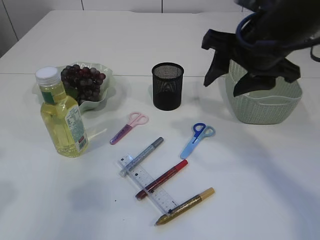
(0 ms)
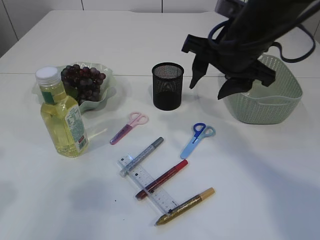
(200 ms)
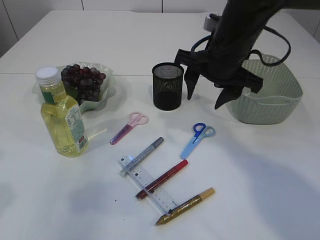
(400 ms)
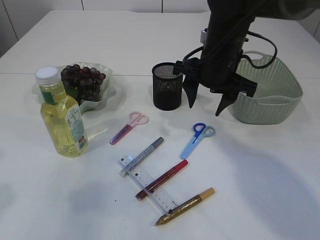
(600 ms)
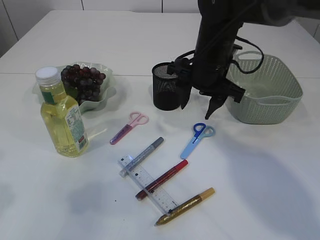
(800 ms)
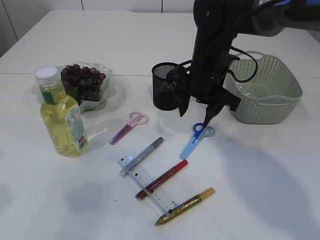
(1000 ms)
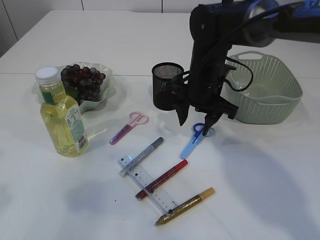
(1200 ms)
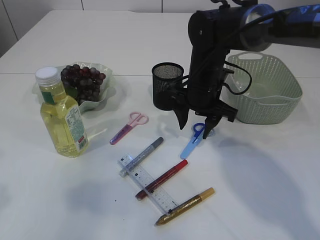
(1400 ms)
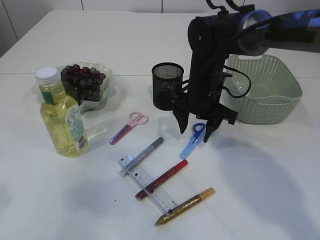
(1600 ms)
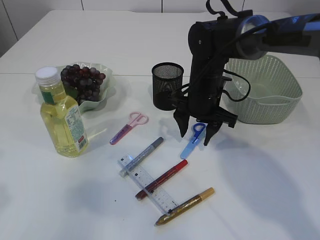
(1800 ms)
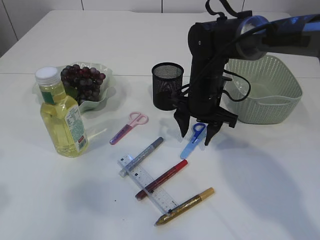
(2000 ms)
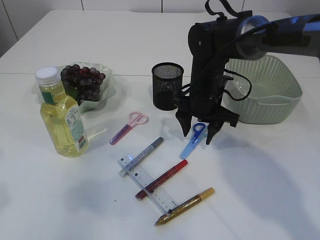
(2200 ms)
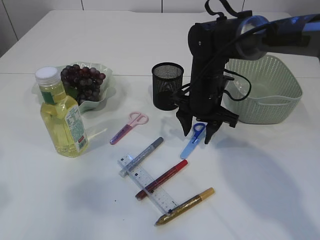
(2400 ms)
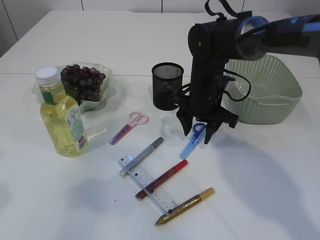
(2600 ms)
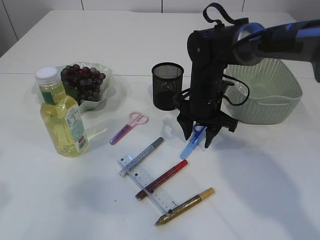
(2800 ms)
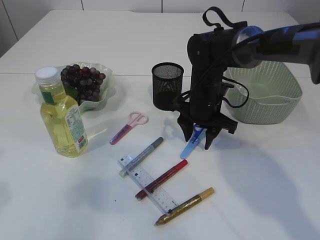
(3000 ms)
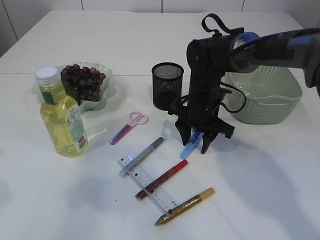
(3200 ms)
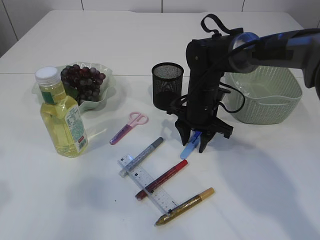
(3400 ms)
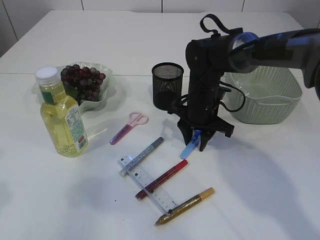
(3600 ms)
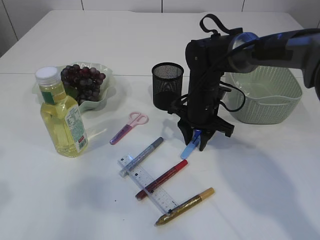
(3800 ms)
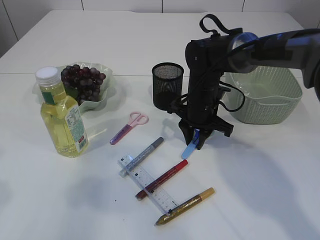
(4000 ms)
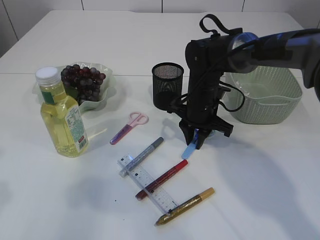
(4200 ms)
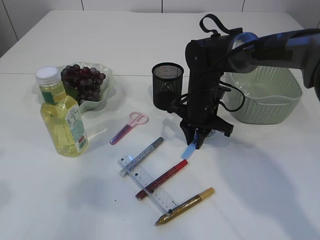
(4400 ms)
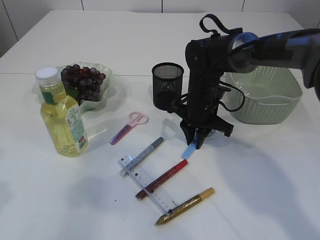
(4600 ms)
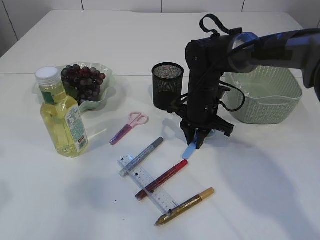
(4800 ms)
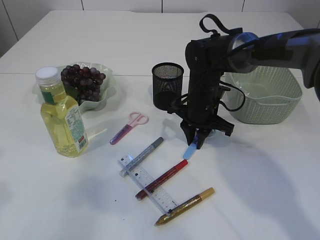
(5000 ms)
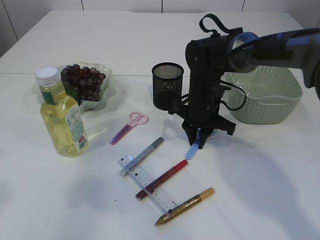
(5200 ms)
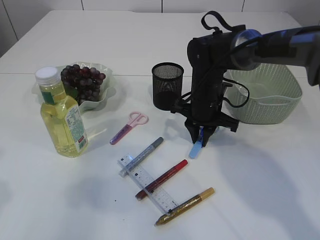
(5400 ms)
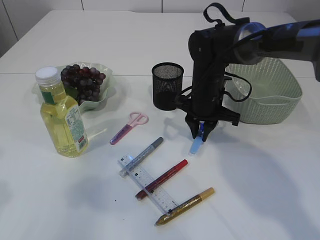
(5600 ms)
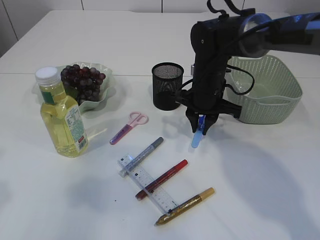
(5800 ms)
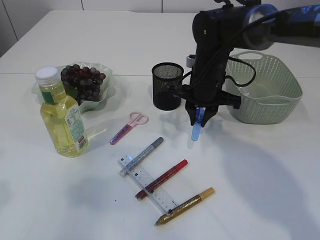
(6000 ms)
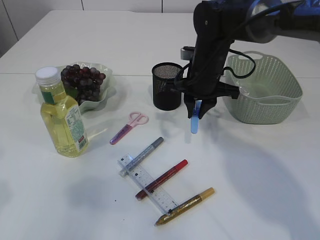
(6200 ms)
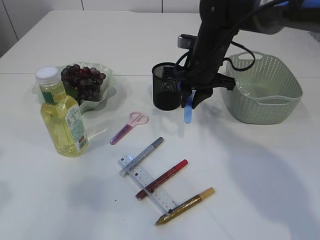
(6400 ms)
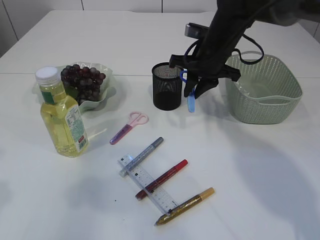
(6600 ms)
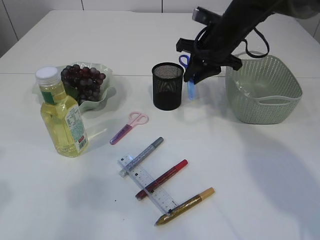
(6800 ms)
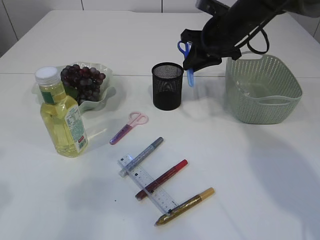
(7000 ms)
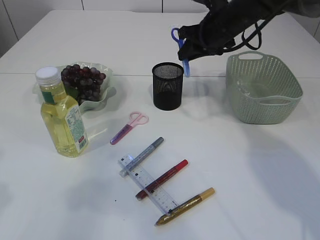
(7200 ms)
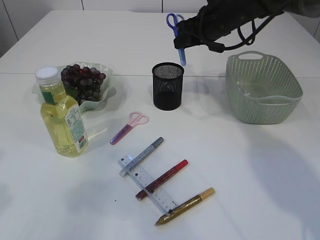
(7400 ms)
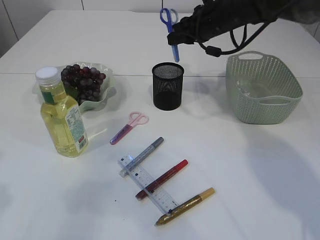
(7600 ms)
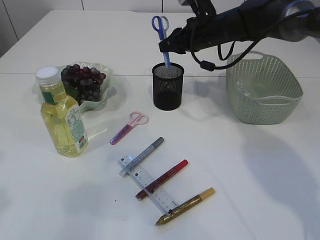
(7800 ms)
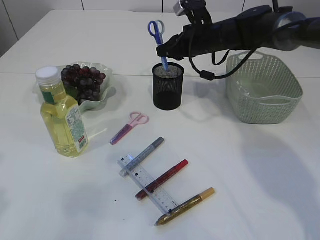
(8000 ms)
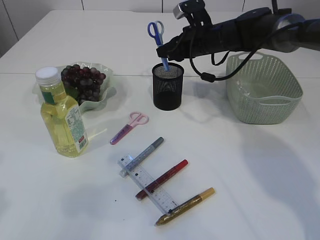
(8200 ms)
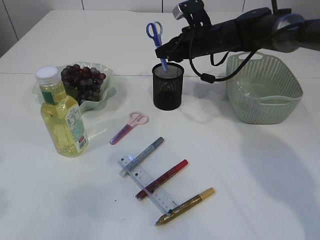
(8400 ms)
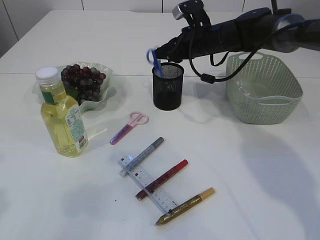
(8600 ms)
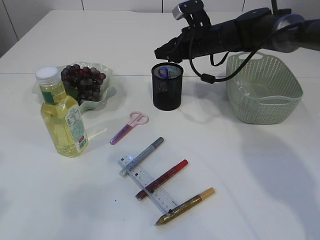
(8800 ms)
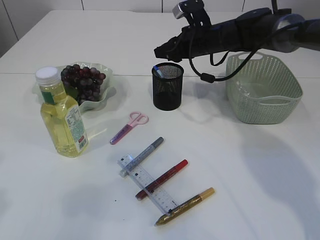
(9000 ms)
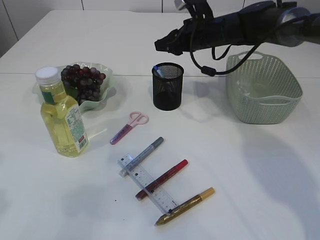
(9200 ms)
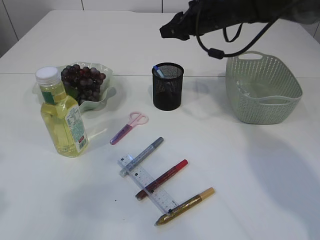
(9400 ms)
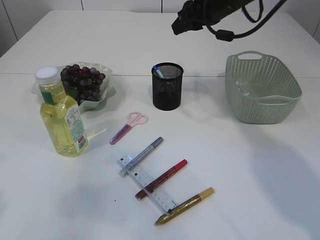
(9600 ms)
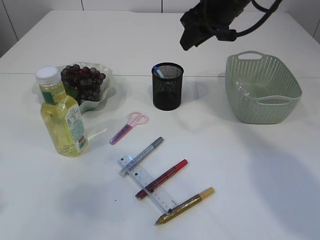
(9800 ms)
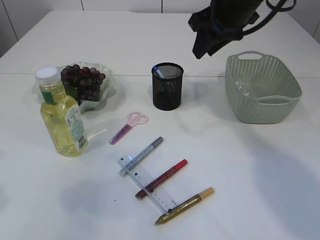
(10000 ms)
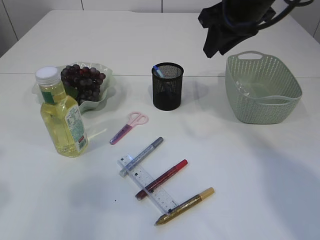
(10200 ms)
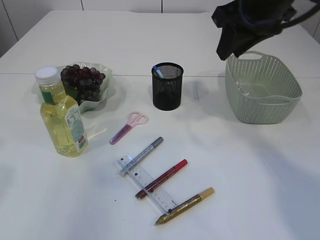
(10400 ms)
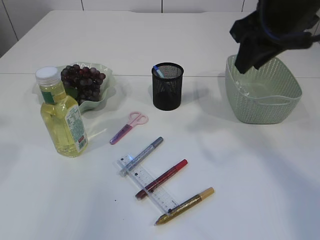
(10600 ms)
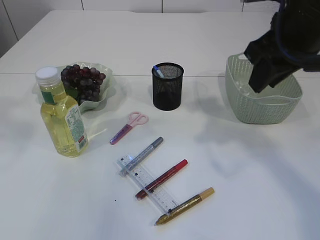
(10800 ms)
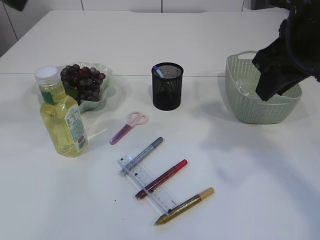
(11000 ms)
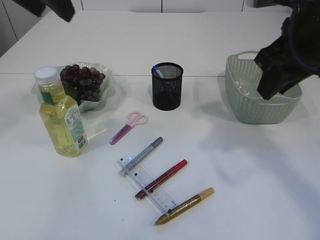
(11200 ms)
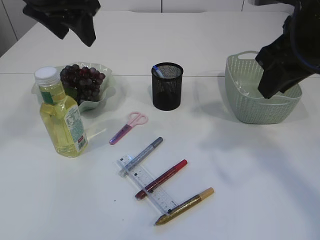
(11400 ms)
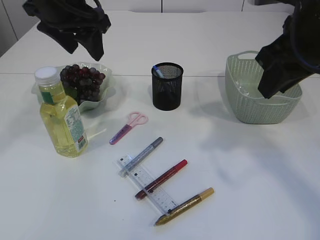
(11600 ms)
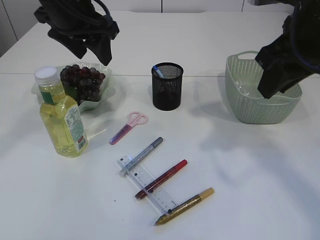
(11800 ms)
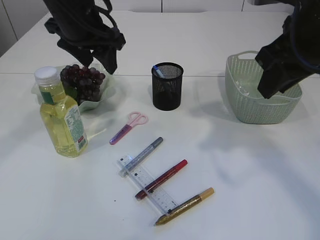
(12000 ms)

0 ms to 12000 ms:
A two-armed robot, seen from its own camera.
Step, 0 ms to 6200 ms: pick up the blue scissors.
Step, 6400 ms to 9200 ms: Place the blue scissors into the pen holder.
0 ms to 1600 ms: The right gripper goes approximately 15 cm downward and forward.
1600 ms to 3000 ms: The grippers make only small movements.
3000 ms to 4400 ms: The right gripper closes.
4400 ms to 6000 ms: The right gripper goes about 5 cm upward.
6000 ms to 7600 ms: The right gripper goes approximately 10 cm forward and upward.
7600 ms to 9000 ms: The grippers move only a little.
9000 ms to 10400 ms: The right gripper is displaced backward and upward by roughly 20 cm. Meanwhile the left gripper ends up about 5 cm from where it was.
10400 ms to 12000 ms: The right gripper goes about 5 cm backward; the left gripper heads forward and to the right, covering about 25 cm.

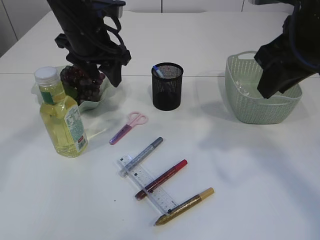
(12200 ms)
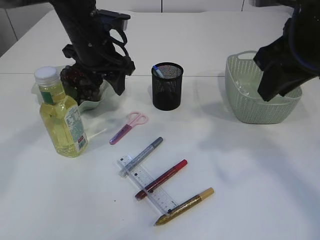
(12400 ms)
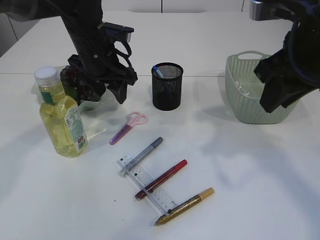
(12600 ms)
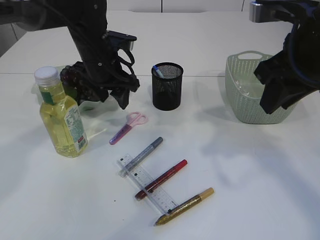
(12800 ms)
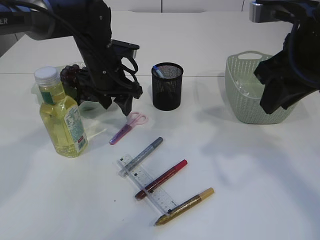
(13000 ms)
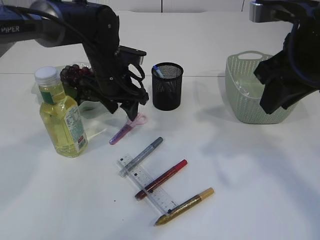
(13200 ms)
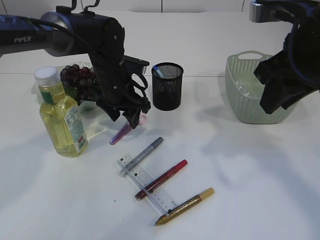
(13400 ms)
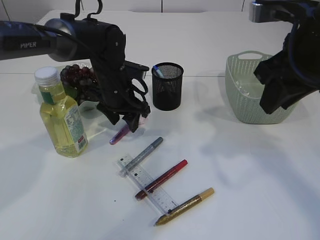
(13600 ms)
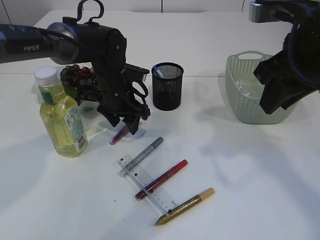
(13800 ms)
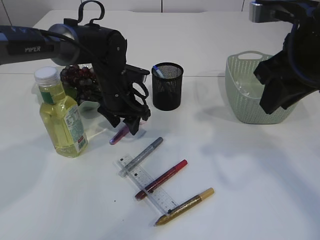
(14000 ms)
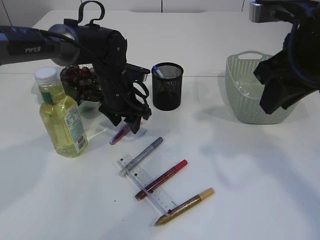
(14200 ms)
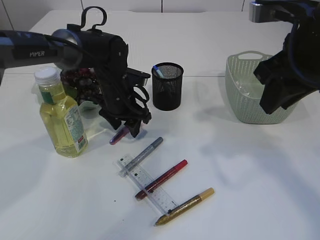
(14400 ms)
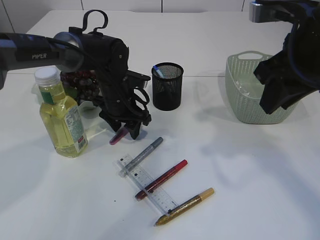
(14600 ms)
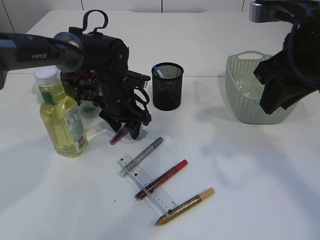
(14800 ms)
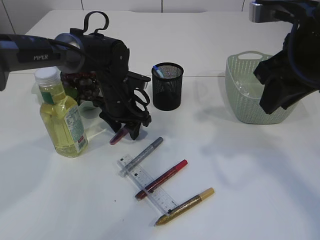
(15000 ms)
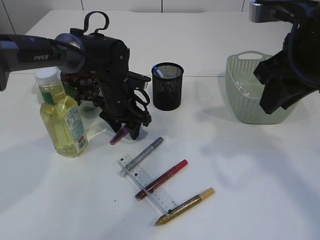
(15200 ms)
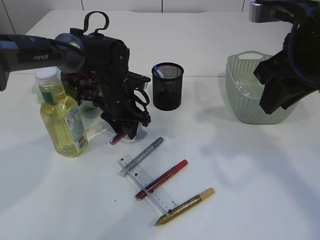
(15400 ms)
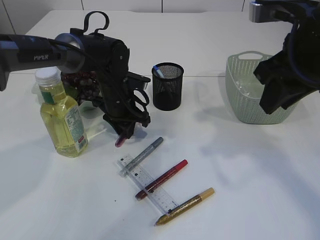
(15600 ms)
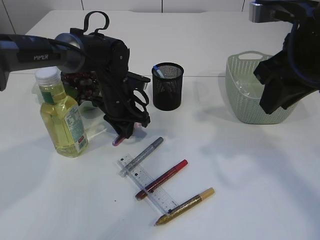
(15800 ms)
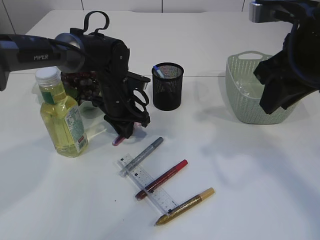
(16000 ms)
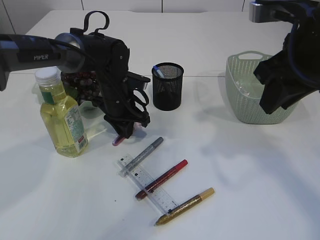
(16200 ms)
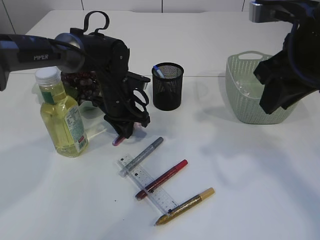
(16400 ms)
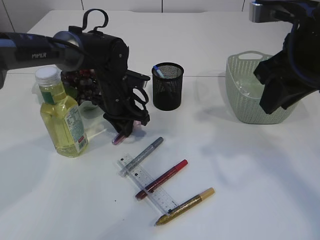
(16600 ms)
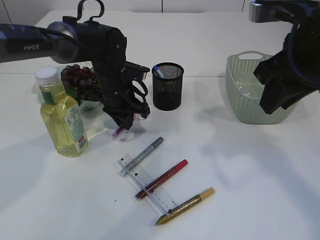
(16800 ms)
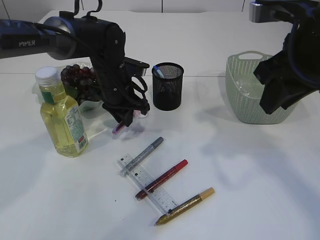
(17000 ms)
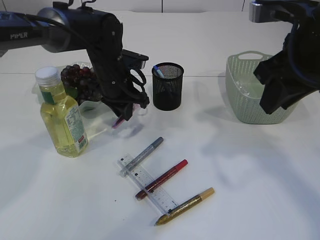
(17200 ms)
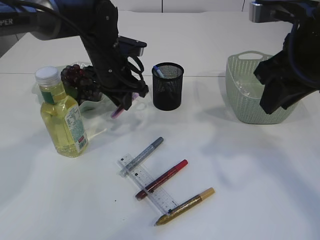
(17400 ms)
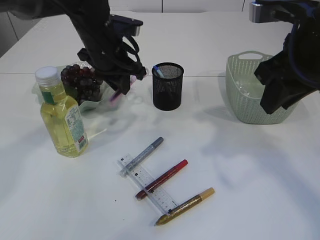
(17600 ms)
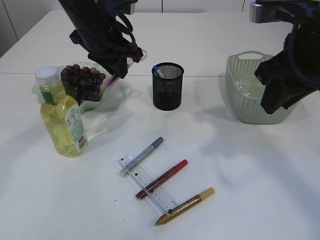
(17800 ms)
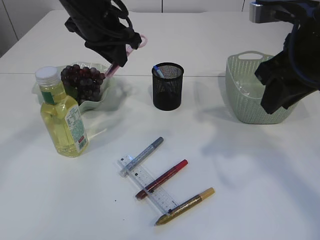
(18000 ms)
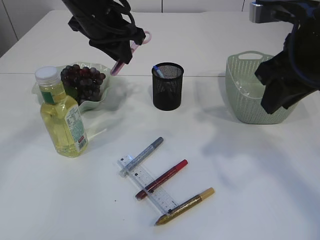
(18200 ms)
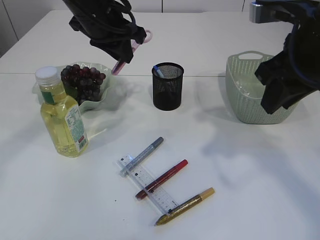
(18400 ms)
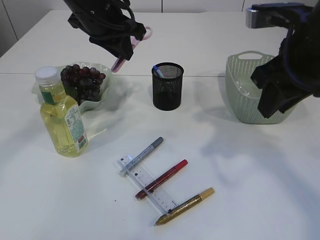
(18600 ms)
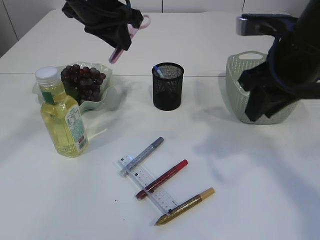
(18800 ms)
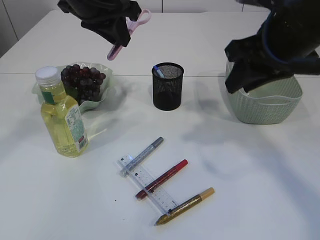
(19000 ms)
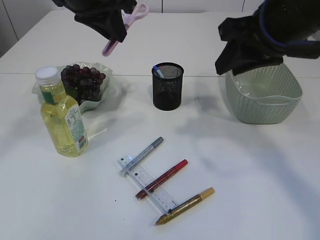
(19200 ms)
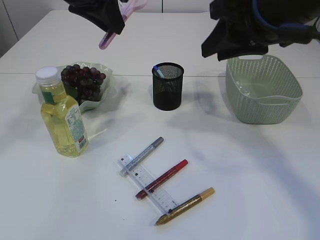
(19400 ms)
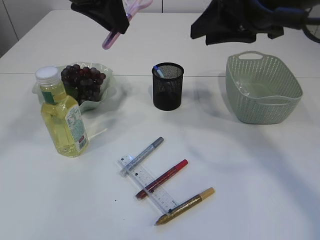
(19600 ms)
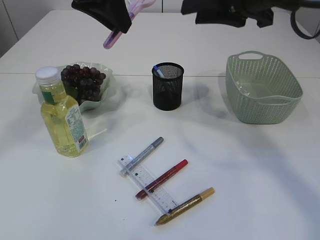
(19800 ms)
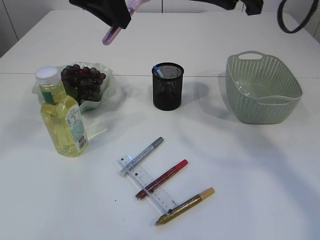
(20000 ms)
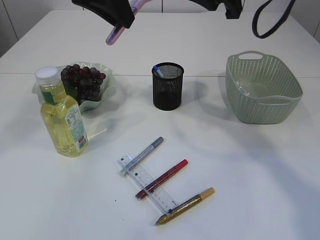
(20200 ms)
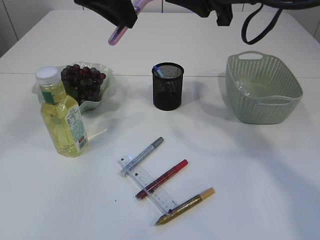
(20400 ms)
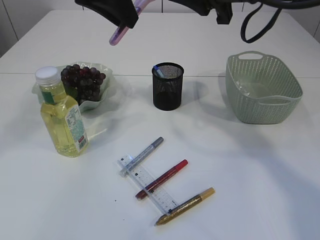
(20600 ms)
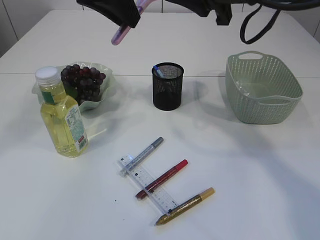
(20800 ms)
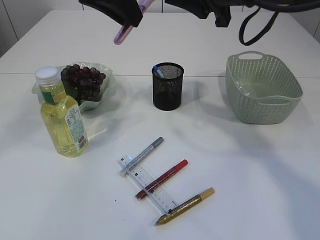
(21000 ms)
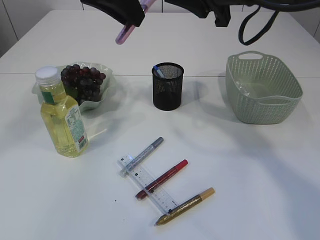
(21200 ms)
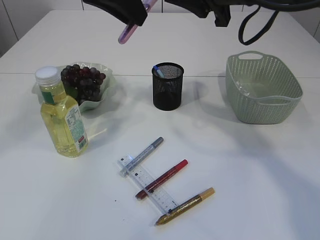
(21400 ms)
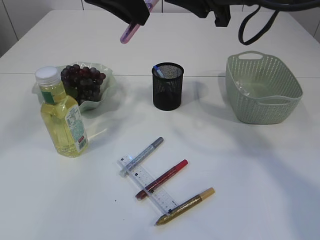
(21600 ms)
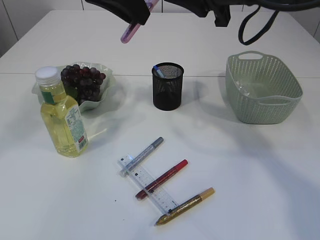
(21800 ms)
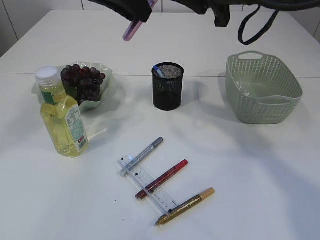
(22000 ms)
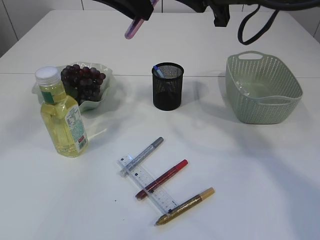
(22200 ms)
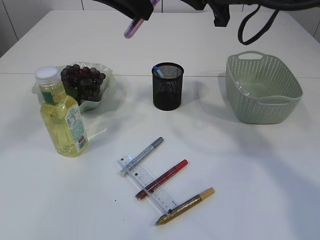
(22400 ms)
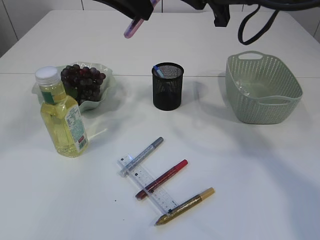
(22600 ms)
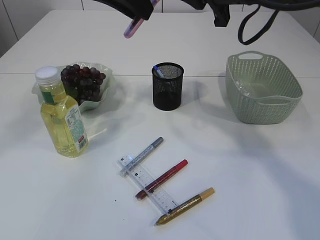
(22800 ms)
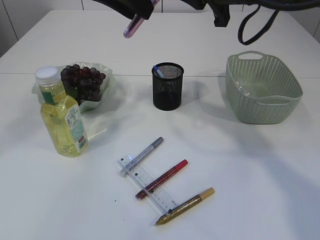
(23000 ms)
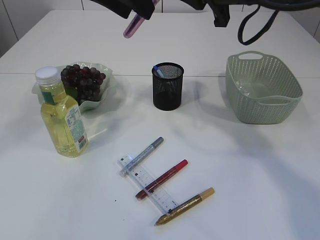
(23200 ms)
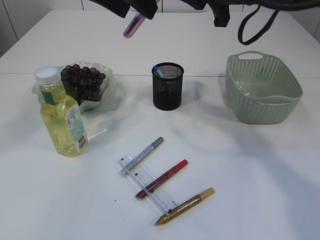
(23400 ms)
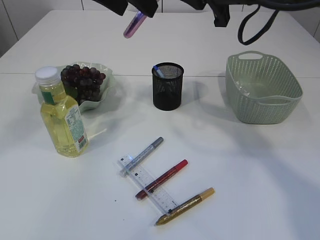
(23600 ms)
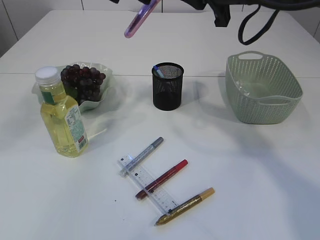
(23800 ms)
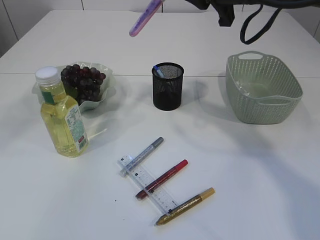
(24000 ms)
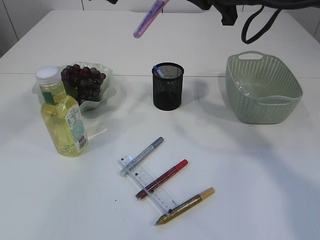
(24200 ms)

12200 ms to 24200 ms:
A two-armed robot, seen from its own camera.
Step, 12200 ms to 17400 ms: pick up the pink scissors.
12200 ms to 13800 ms: The left gripper moves downward, approximately 15 cm.
13800 ms to 15200 ms: There are only small adjustments of the grippers.
15200 ms to 16600 ms: The left gripper closes.
16600 ms to 18200 ms: The left gripper shifts about 20 cm upward.
18200 ms to 19800 ms: The left gripper heads upward and backward, covering roughly 10 cm; the right gripper changes place by about 10 cm.
21200 ms to 22600 ms: The right gripper closes.
22600 ms to 24200 ms: The left gripper changes place by about 5 cm, and opens its fingers.
